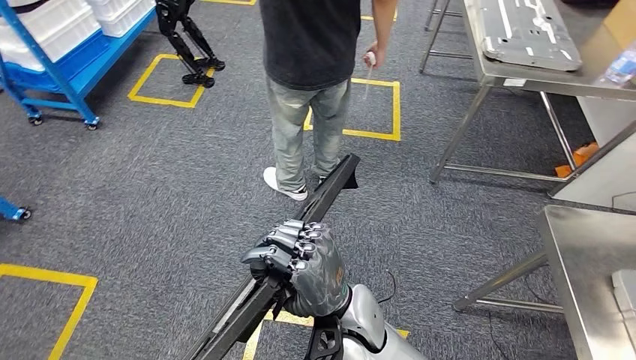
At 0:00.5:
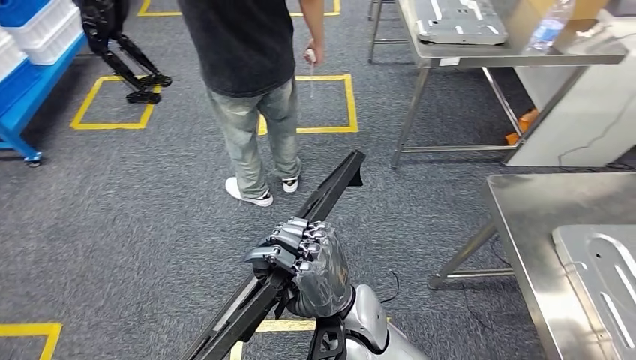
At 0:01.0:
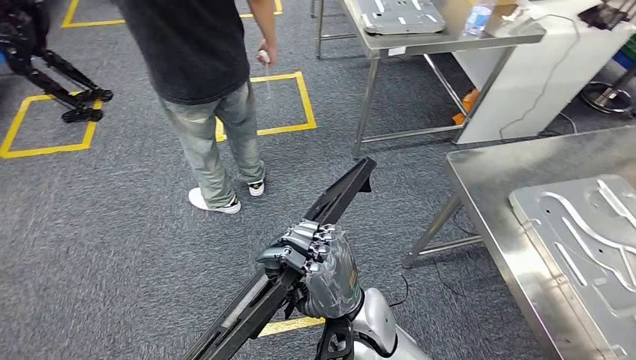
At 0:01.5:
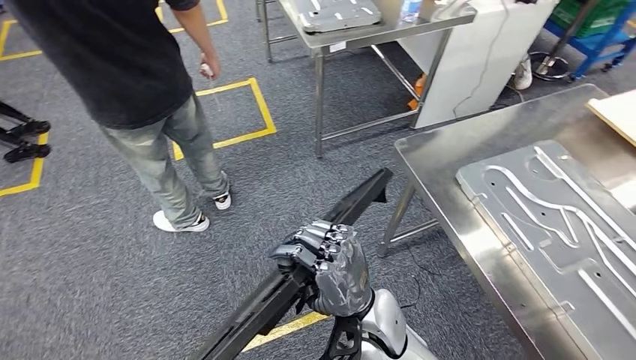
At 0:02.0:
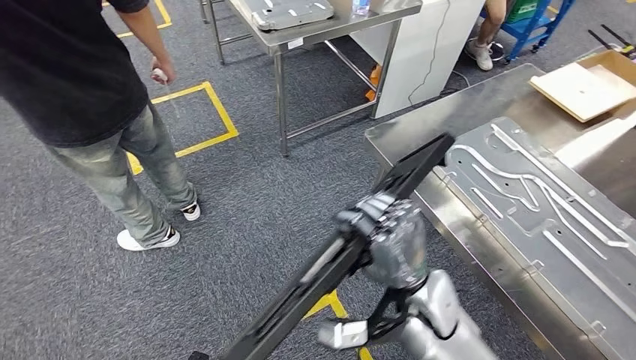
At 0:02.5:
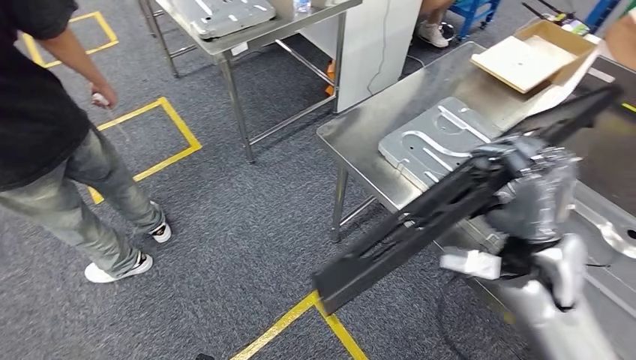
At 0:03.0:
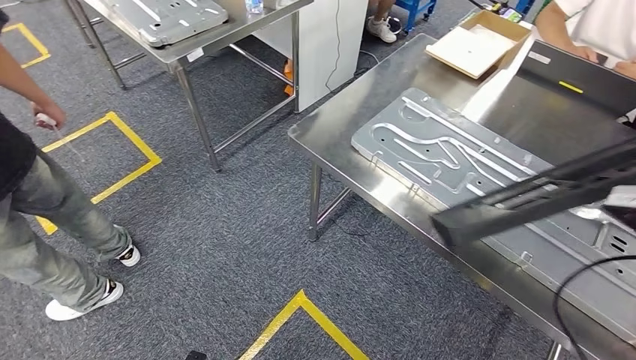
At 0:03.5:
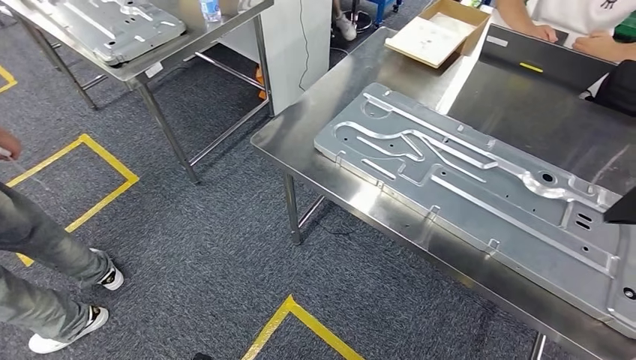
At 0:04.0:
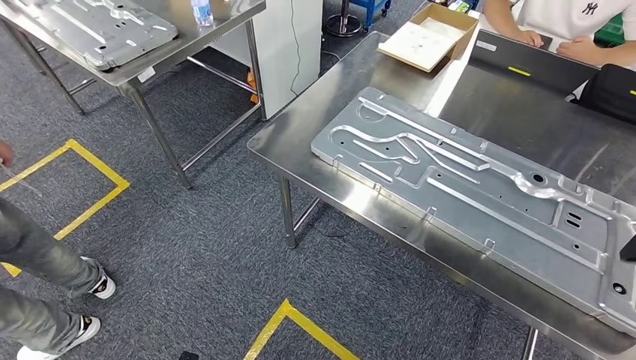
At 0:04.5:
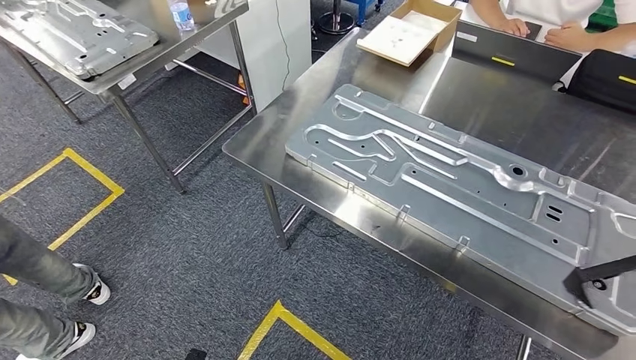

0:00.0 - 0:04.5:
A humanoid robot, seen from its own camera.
Step, 0:00.0 - 0:04.5: Move the large material to the front of the workbench.

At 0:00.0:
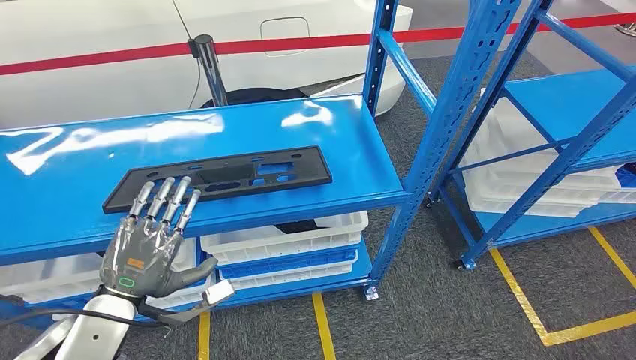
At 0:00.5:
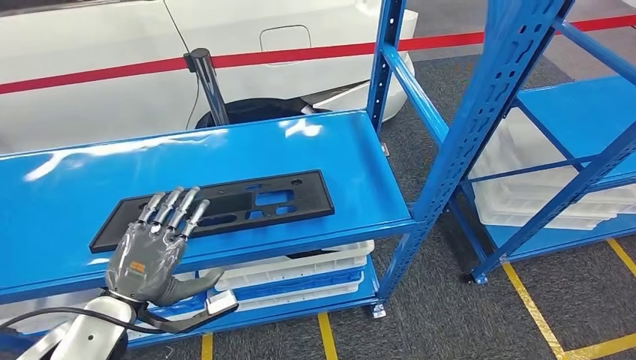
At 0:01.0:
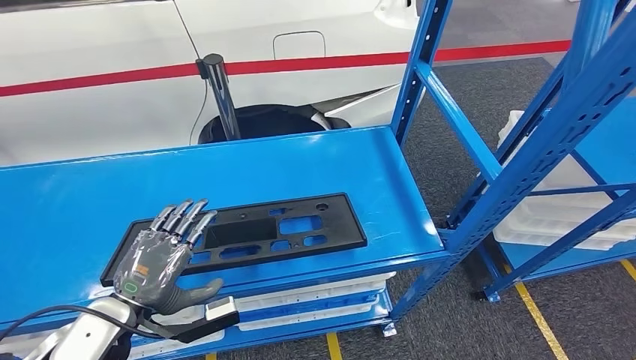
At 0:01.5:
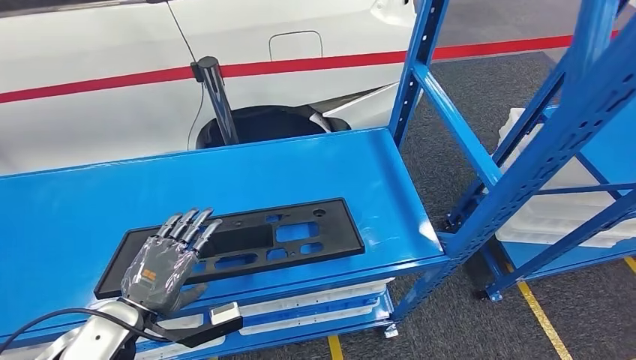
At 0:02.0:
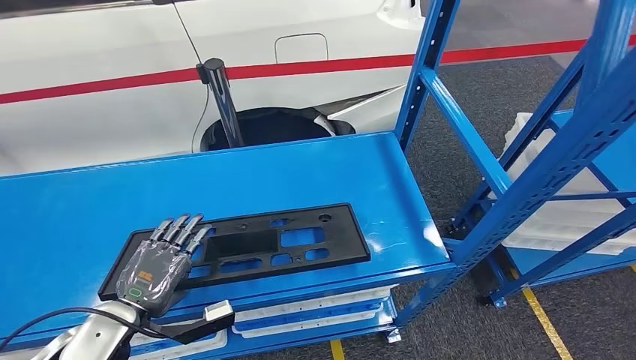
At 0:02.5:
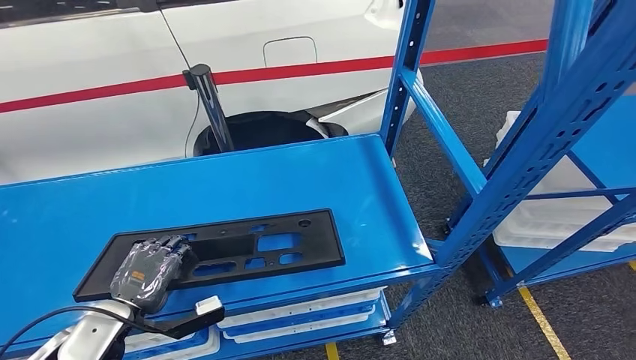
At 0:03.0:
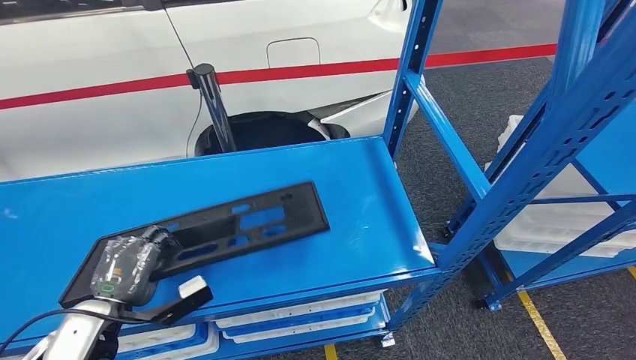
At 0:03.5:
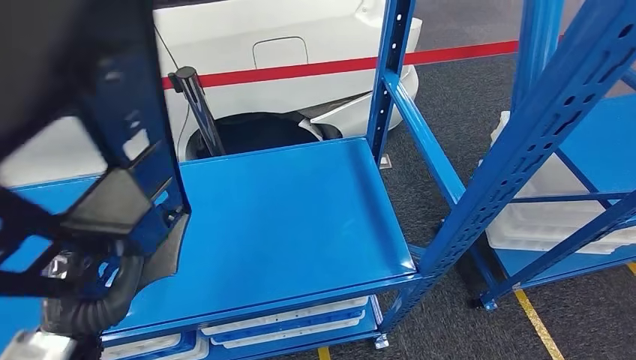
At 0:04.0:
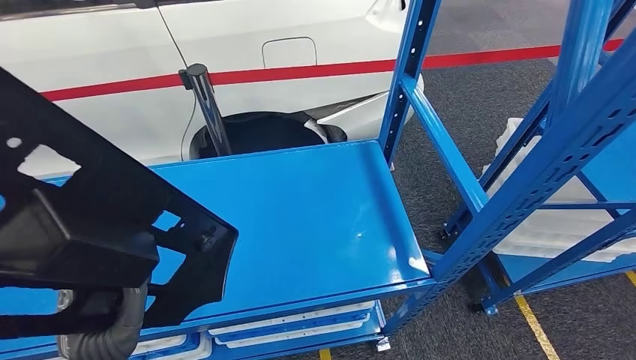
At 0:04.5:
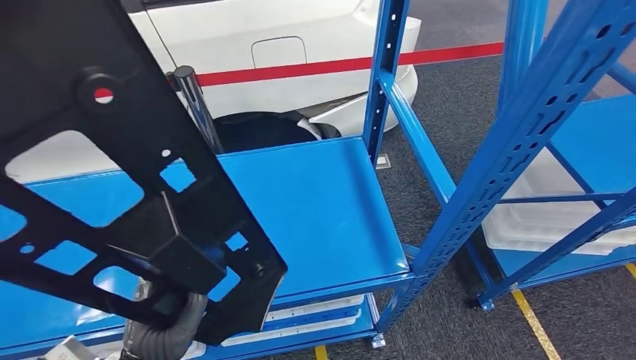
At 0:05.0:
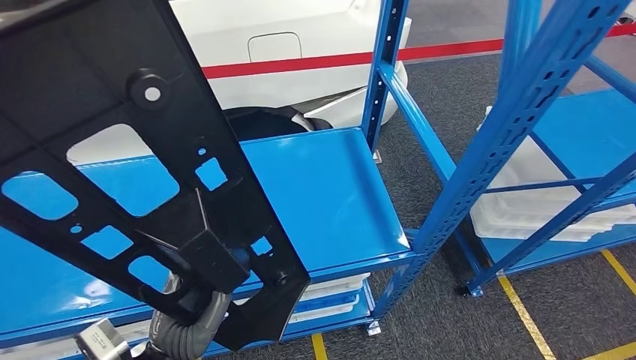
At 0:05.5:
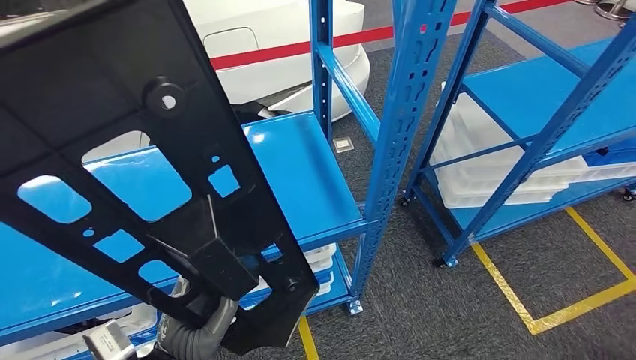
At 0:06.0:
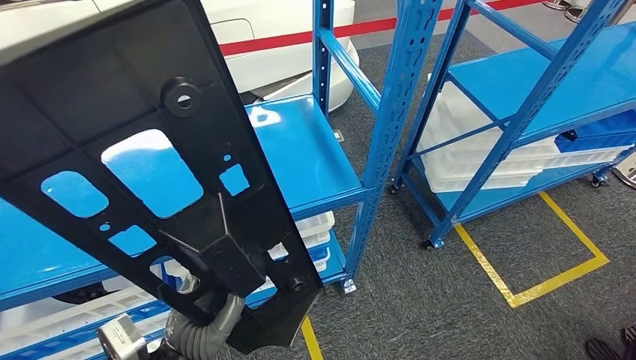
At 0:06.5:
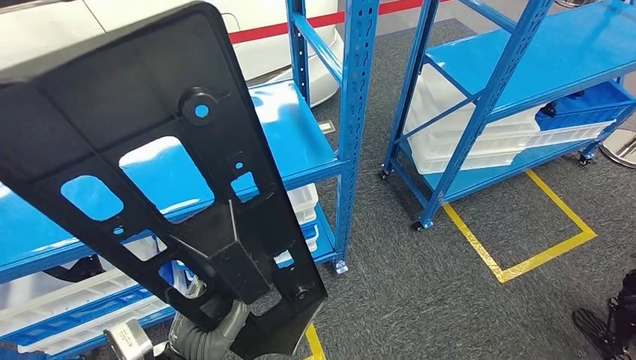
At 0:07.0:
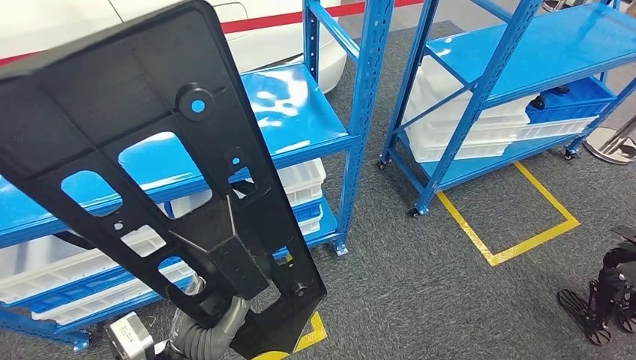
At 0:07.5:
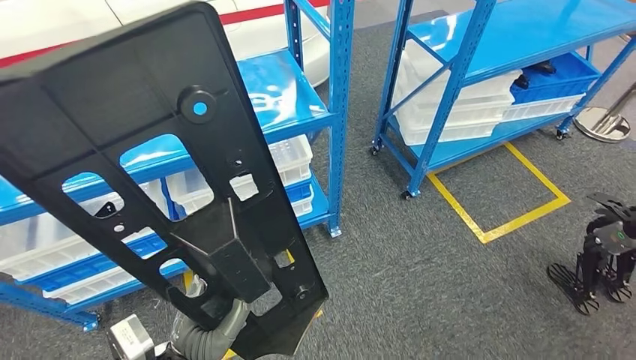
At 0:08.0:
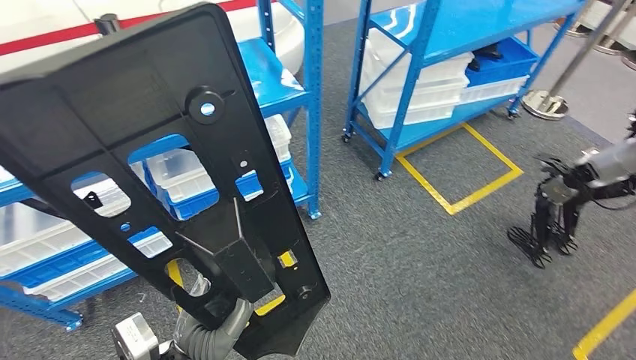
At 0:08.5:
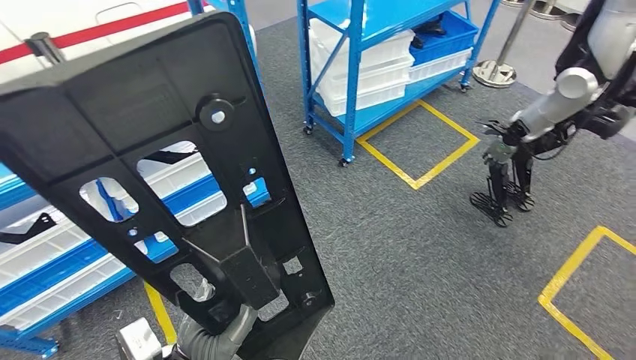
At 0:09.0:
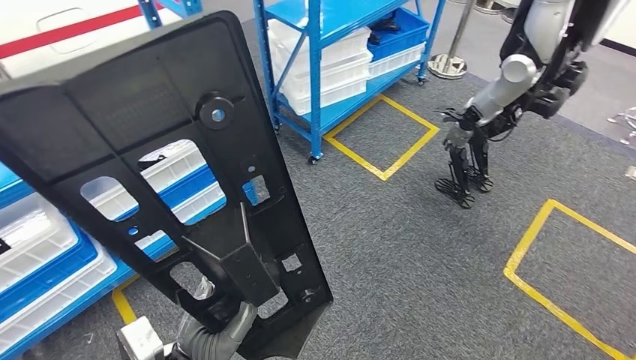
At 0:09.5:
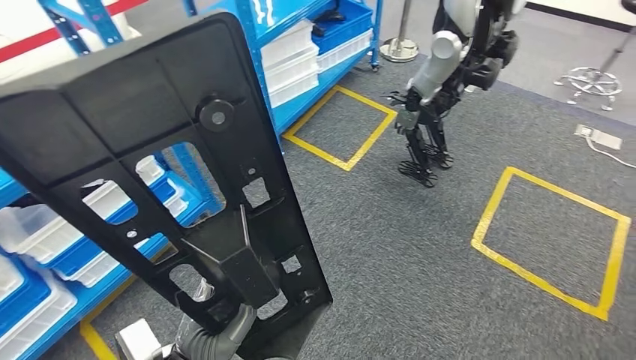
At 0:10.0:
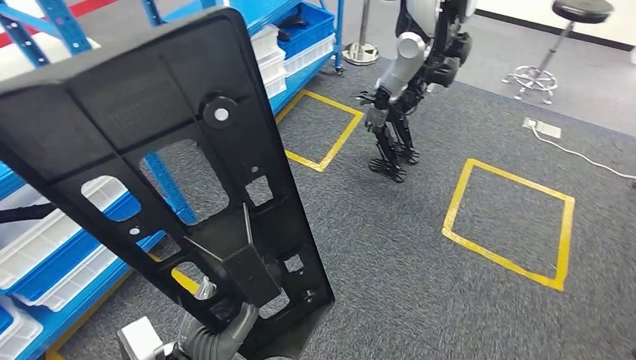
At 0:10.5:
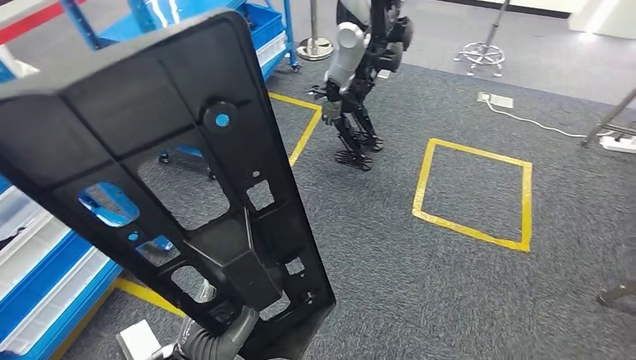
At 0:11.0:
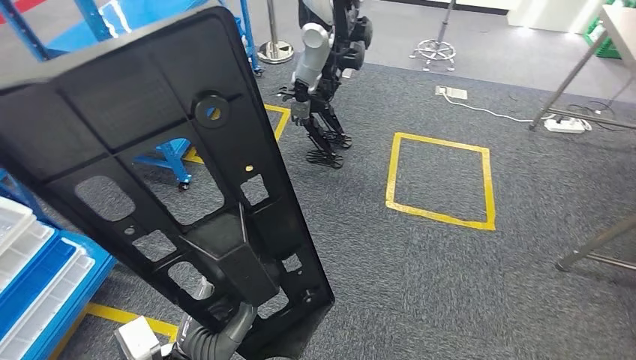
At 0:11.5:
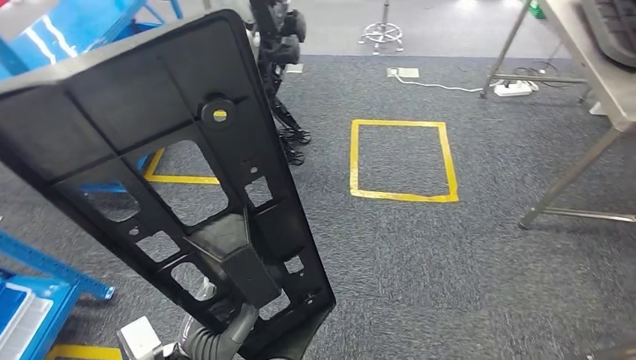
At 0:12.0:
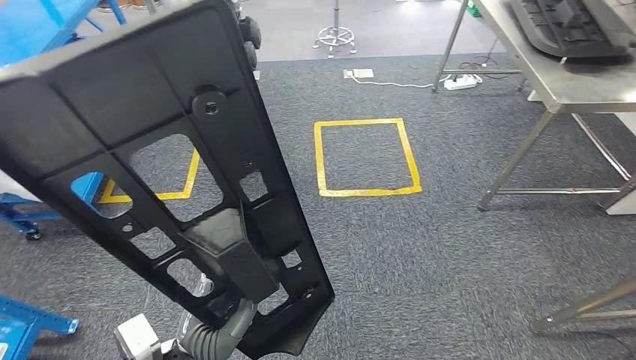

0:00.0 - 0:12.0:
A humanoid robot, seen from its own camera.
Step, 0:00.0 - 0:04.5: Pick up the large material from the shelf.

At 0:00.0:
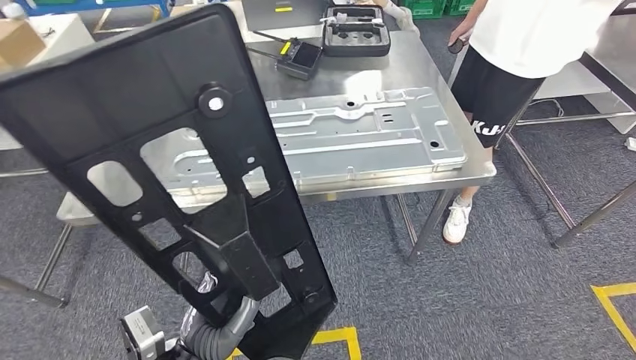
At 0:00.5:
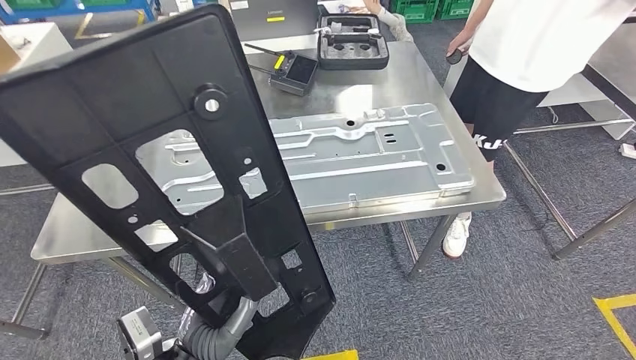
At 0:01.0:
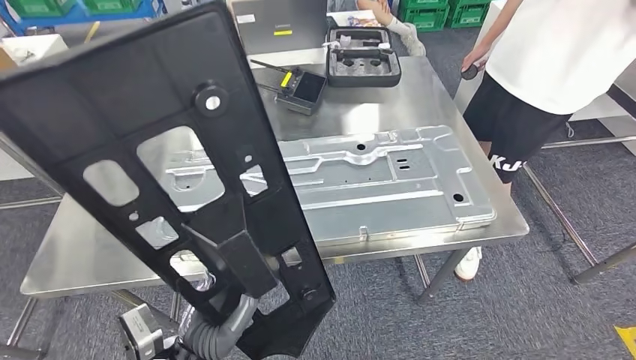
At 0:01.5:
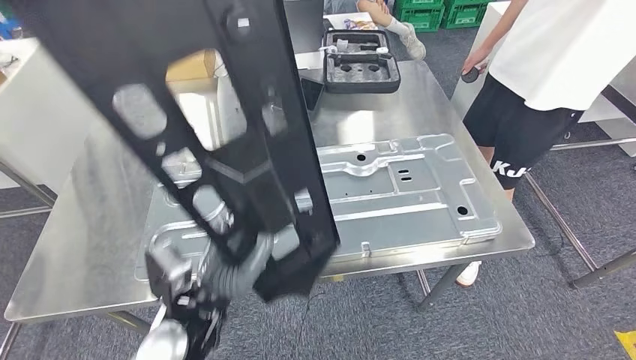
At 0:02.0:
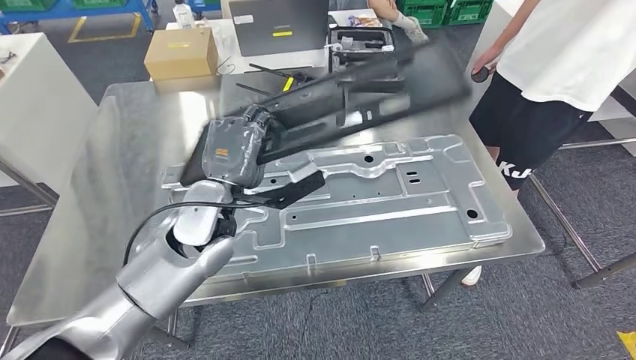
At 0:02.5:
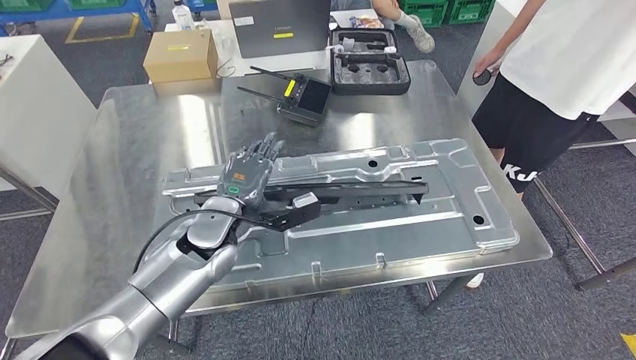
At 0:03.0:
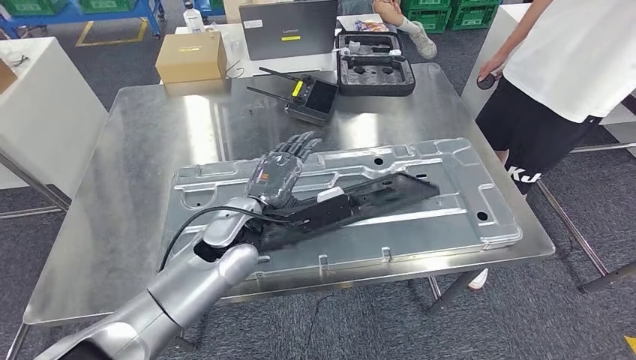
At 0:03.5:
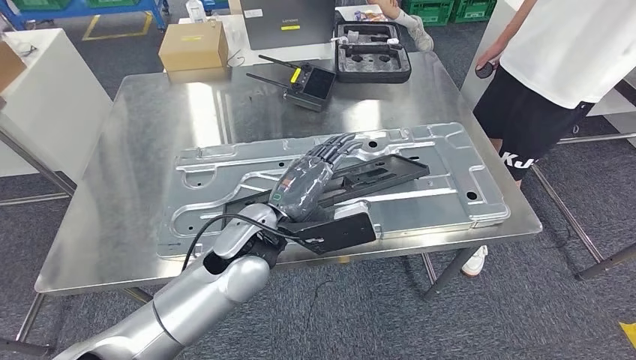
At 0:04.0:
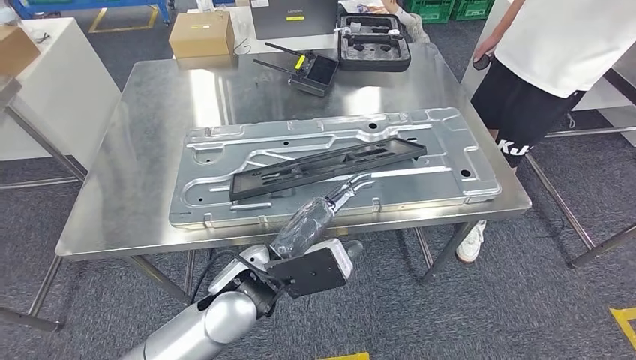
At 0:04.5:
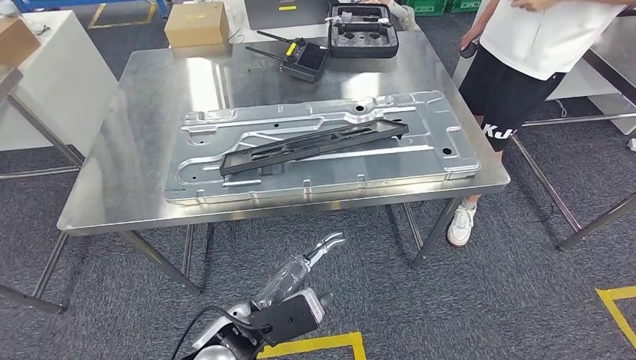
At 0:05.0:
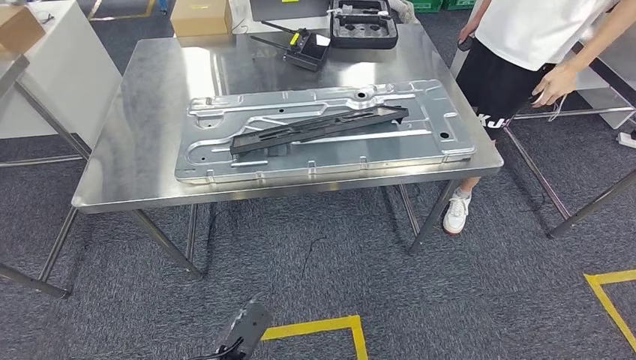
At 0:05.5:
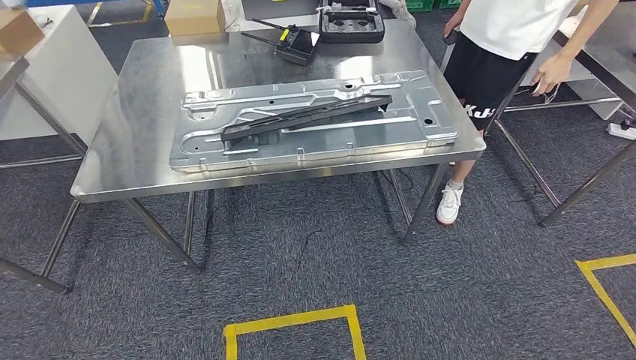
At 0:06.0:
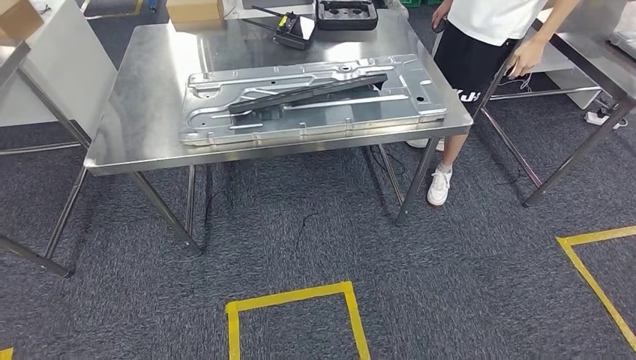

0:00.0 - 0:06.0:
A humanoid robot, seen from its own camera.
Step, 0:02.0 - 0:05.0: Insert the large material into the corresponding hole on the workbench.
